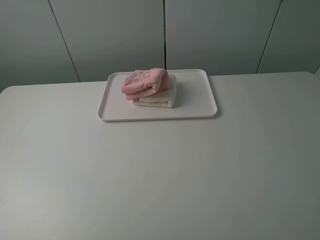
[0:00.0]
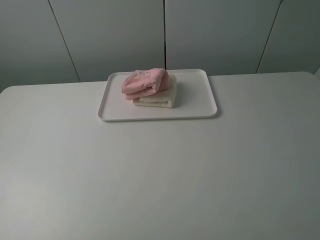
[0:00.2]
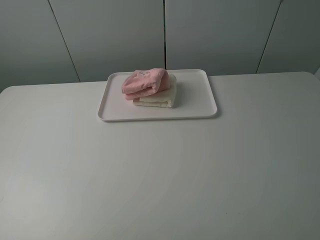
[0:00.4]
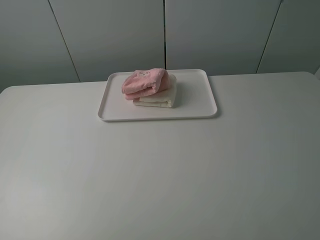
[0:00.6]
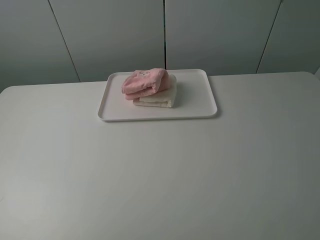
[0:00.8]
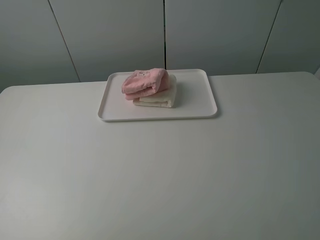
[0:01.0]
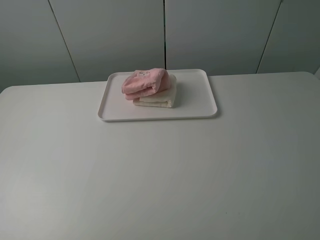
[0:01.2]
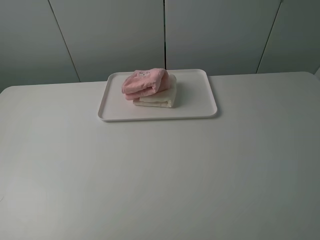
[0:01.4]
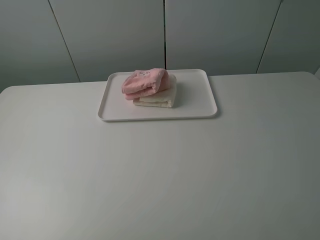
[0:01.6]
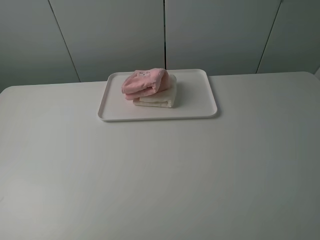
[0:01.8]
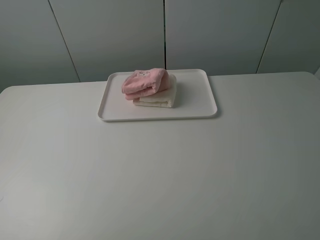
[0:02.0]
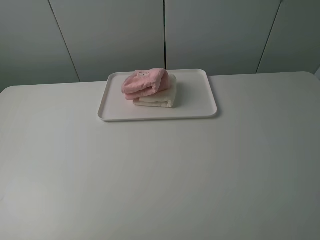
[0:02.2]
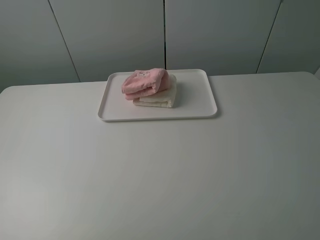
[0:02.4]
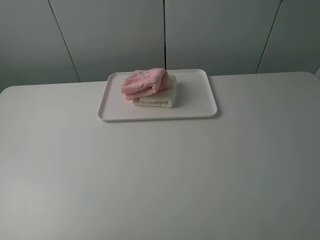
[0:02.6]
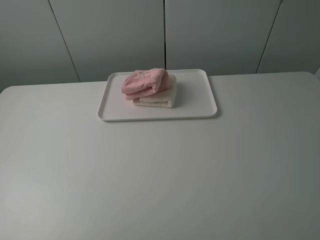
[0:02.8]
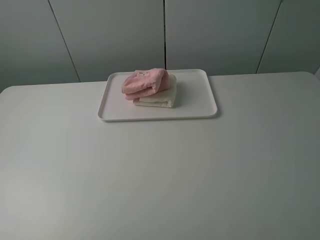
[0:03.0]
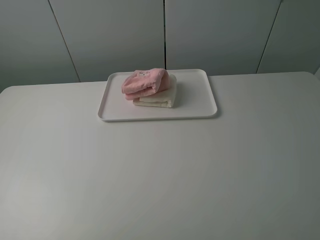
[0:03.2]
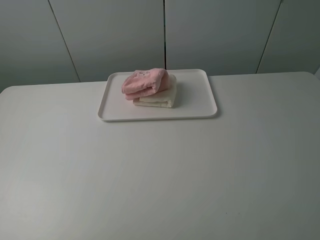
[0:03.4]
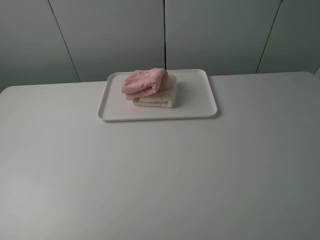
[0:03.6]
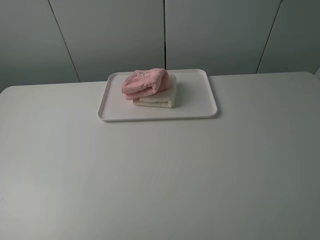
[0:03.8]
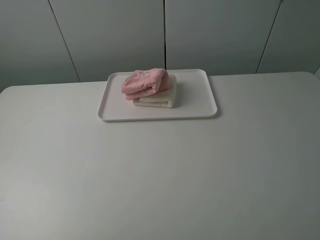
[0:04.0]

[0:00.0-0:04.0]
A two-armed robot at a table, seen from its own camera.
Task of the whole recording: fold one of the towels by two grippers and place it on the tray,then fold another towel by two grippers and place it on the folded towel.
0:02.6 to 0:04.0: Both grippers stay about where they are.

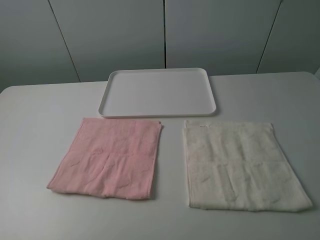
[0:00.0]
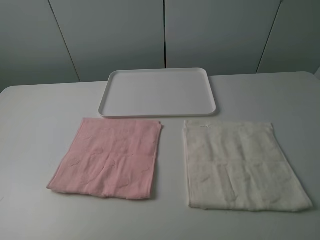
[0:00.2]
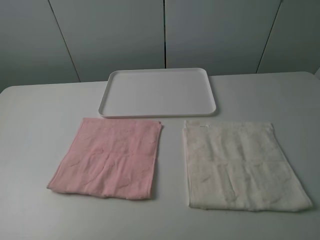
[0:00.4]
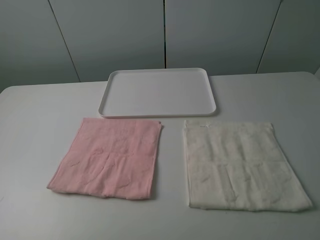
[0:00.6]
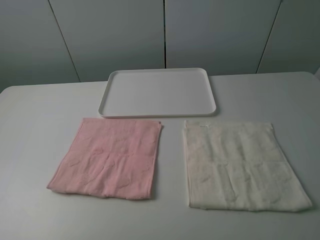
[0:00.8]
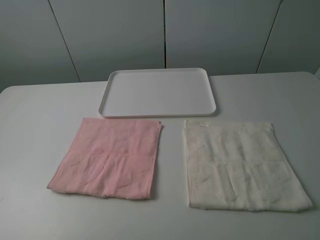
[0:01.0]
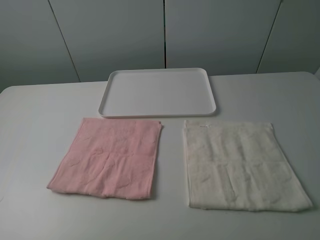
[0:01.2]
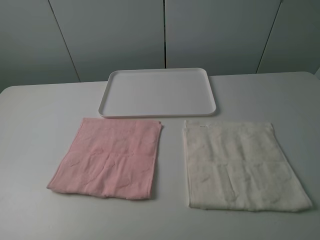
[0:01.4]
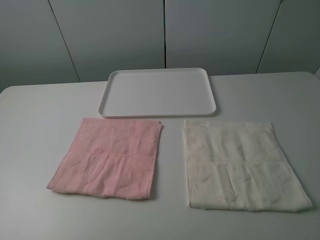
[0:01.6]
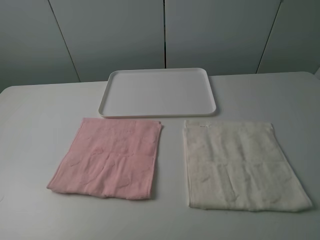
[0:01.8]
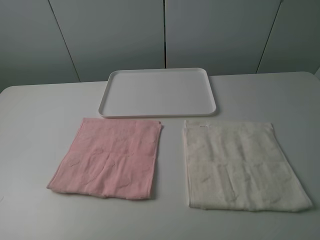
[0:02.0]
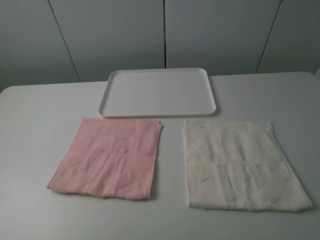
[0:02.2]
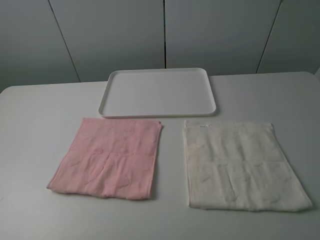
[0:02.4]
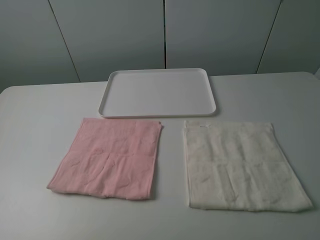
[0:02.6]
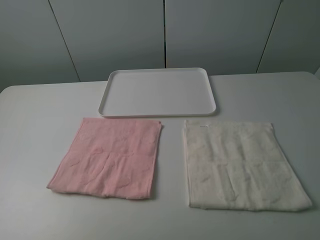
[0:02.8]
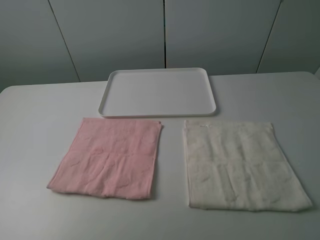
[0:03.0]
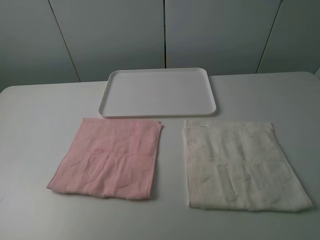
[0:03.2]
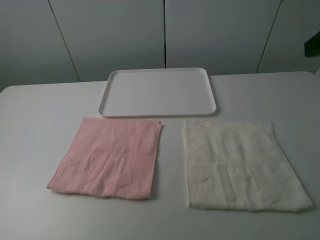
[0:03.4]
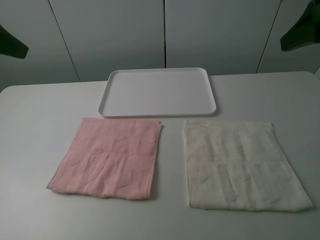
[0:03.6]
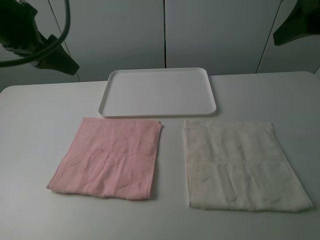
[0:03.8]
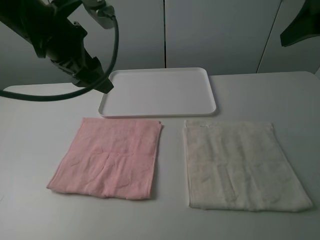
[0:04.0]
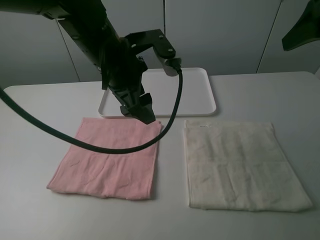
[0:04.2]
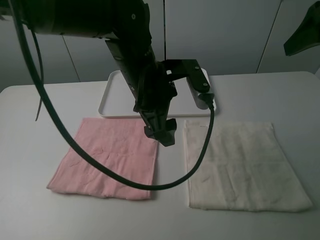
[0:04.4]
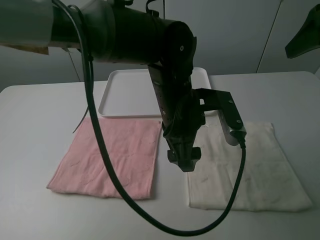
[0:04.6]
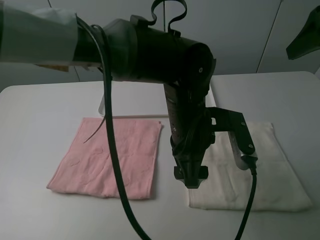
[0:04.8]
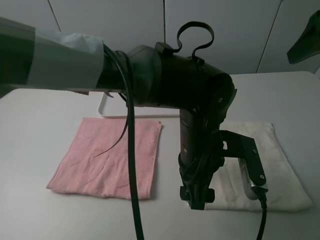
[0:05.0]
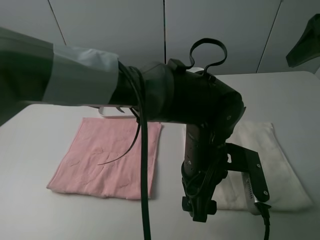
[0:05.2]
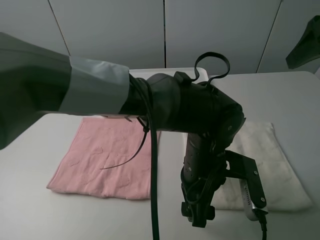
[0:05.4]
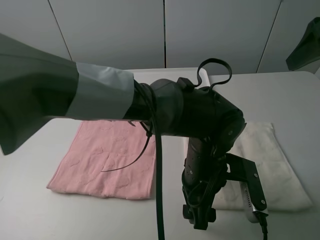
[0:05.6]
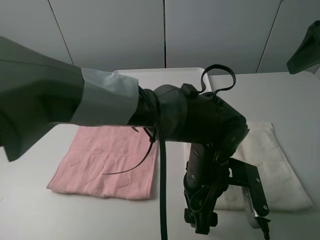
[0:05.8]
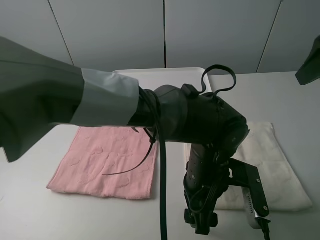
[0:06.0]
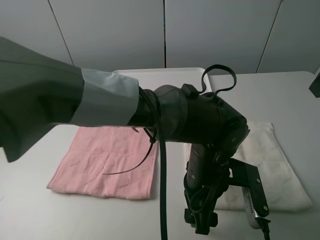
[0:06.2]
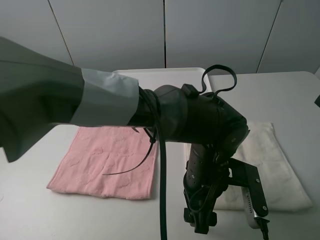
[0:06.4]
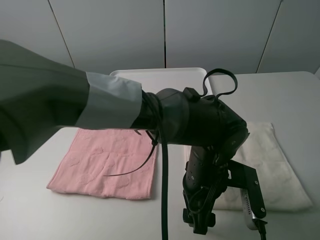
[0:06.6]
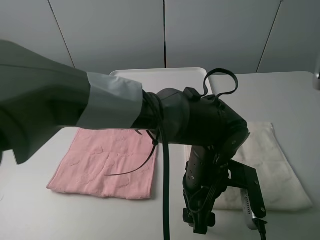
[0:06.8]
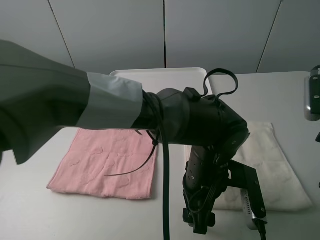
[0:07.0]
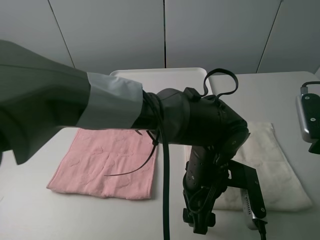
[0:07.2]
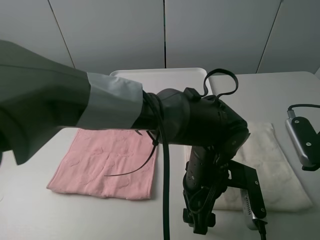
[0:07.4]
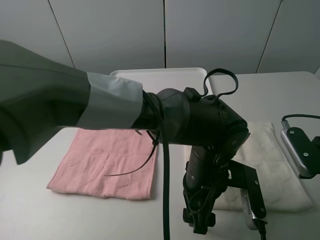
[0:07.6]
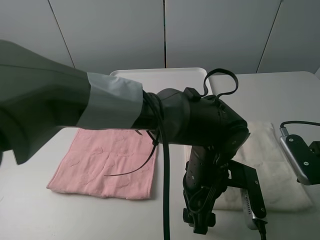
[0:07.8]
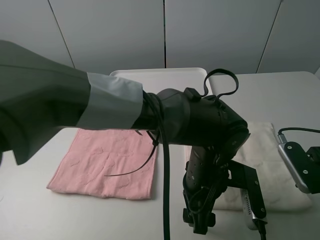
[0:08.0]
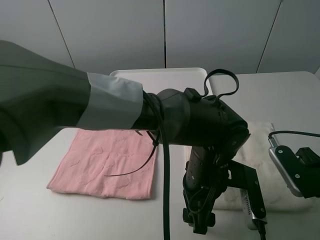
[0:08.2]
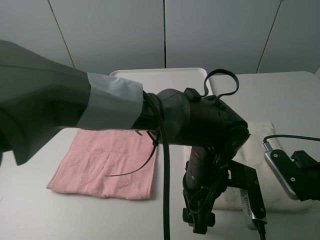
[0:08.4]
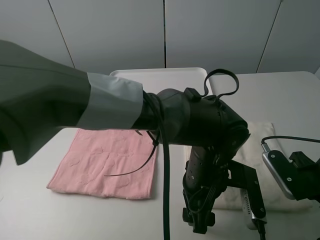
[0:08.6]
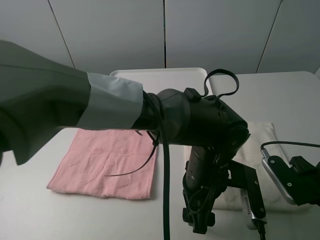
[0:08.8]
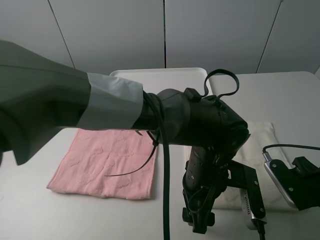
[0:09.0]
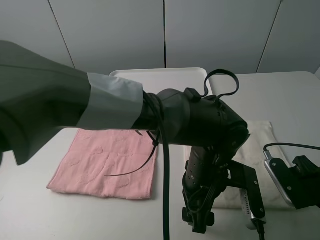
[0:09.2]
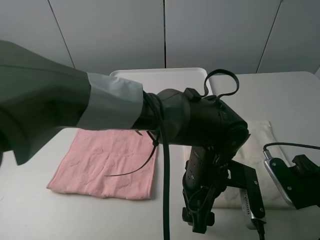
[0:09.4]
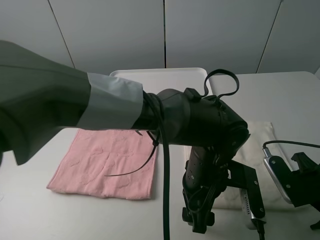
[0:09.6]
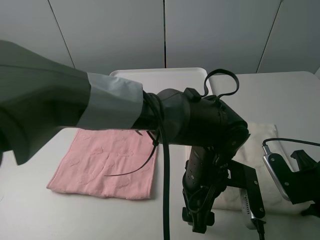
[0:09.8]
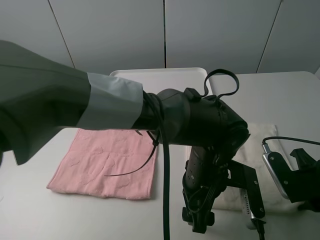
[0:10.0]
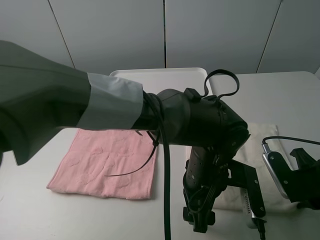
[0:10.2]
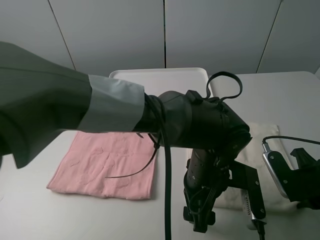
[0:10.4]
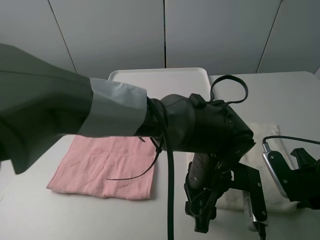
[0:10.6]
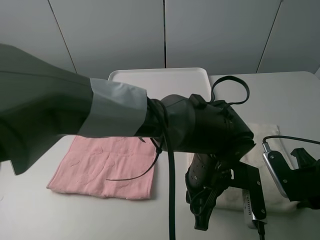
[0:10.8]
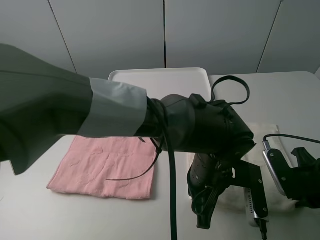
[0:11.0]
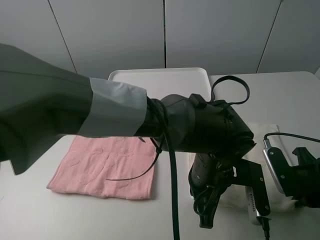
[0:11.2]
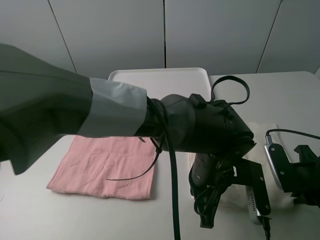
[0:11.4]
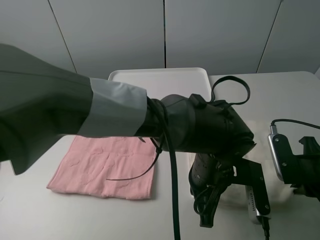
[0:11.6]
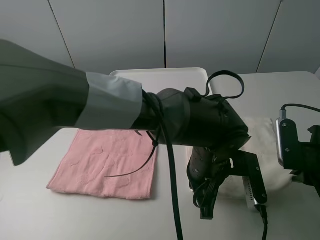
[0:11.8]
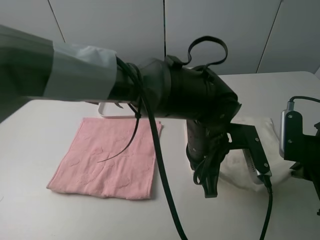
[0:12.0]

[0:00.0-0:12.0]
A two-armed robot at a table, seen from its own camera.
Task of the whole recording: fold one of the towels by two grippers and place it on the tray,then fold another towel by two grippers and place it on the folded towel.
Step, 0:00.0 to 0:11.2: Grasp the white towel with the left gripper.
0:00.0 to 0:01.6: The two grippers keep their place.
0:03.0 to 0:04.4: The right gripper heads forward, covering about 15 cm. Meanwhile the left gripper goes roughly 40 cm to the right, forward and downward.
0:04.4 to 0:06.0: The left gripper heads downward, backward and to the right, covering roughly 15 cm.
0:06.0 to 0:07.6: The right gripper is displaced downward by roughly 15 cm.
0:07.6 to 0:09.0: The right gripper changes place by some 5 cm.
0:09.0 to 0:10.4: The right gripper closes its fingers.
0:10.4 to 0:12.0: The left gripper shifts by roughly 5 cm, and closes its fingers.

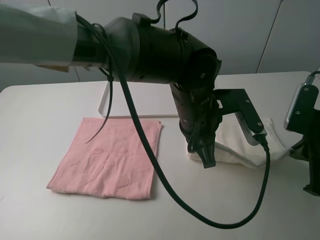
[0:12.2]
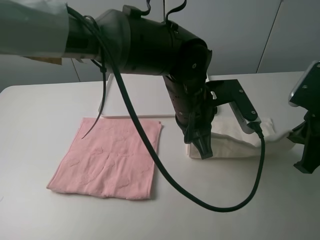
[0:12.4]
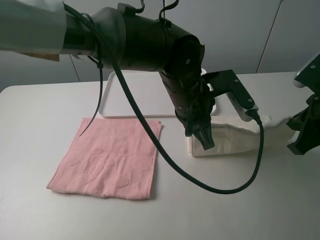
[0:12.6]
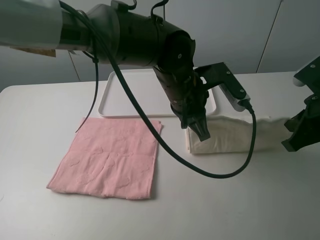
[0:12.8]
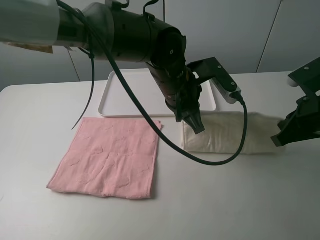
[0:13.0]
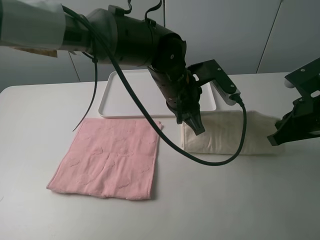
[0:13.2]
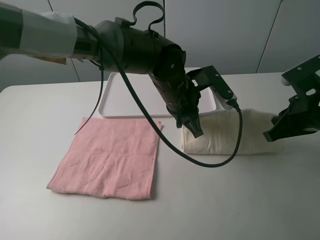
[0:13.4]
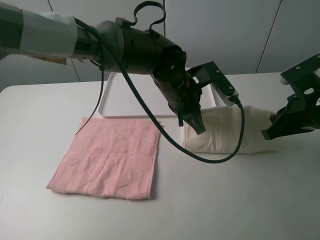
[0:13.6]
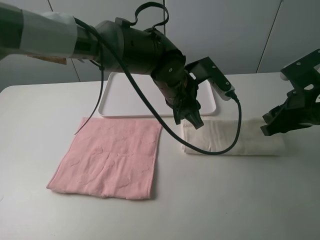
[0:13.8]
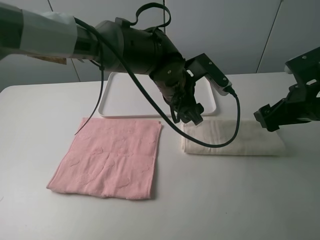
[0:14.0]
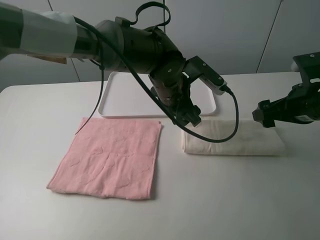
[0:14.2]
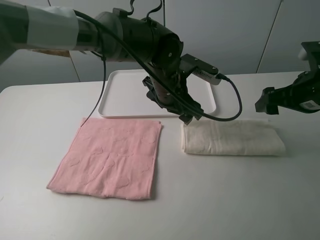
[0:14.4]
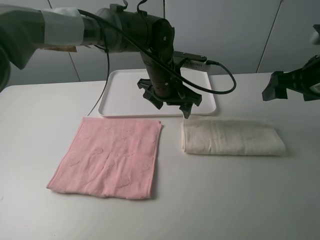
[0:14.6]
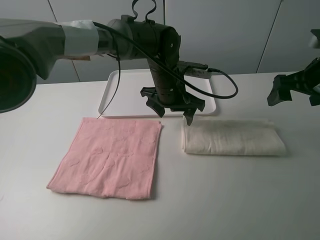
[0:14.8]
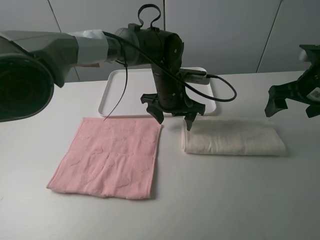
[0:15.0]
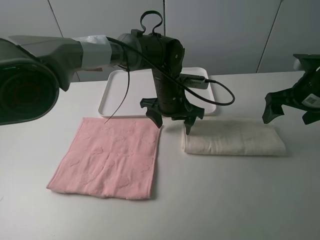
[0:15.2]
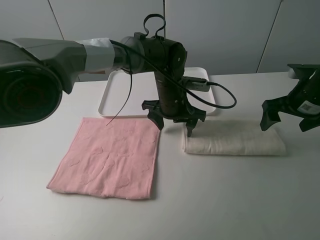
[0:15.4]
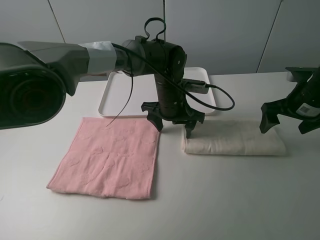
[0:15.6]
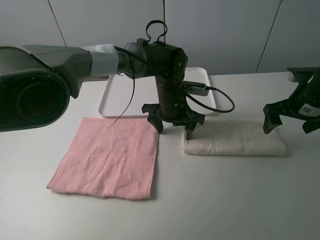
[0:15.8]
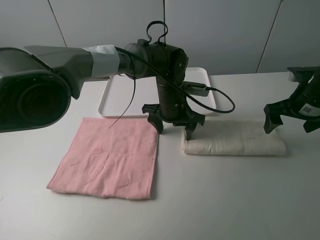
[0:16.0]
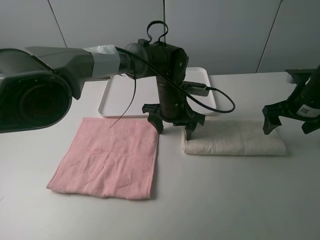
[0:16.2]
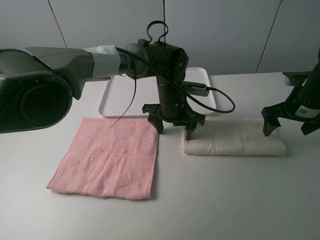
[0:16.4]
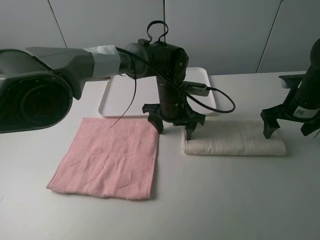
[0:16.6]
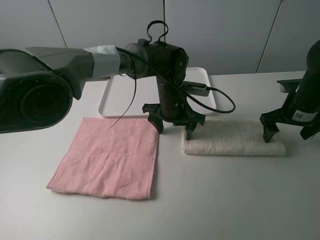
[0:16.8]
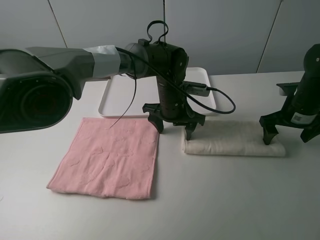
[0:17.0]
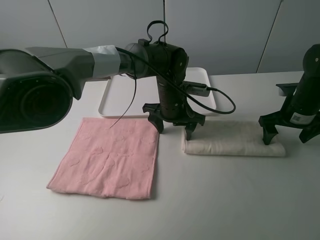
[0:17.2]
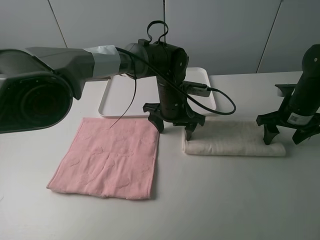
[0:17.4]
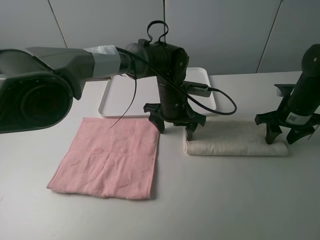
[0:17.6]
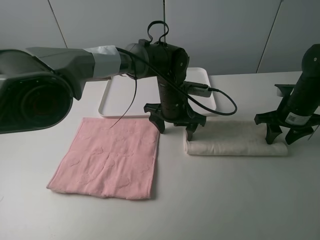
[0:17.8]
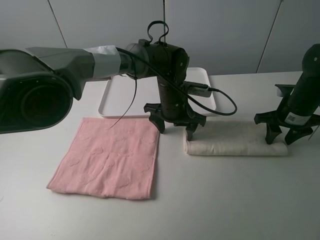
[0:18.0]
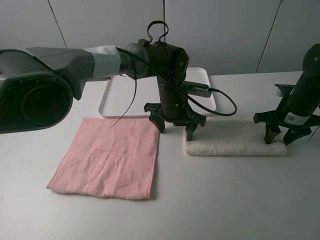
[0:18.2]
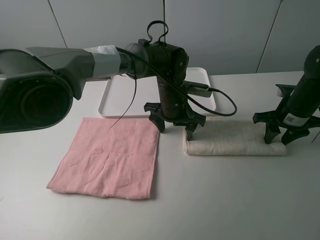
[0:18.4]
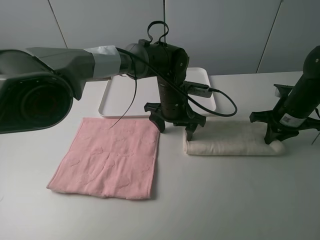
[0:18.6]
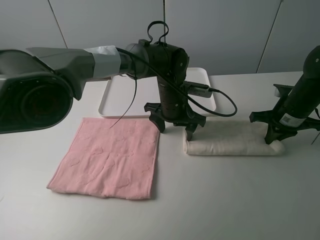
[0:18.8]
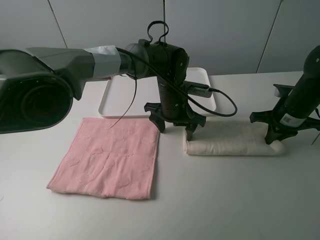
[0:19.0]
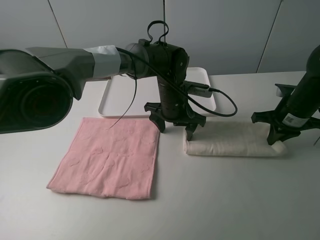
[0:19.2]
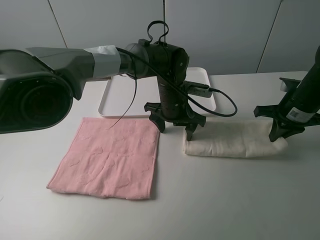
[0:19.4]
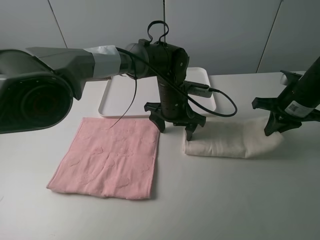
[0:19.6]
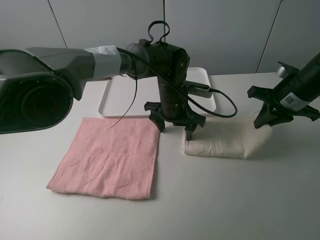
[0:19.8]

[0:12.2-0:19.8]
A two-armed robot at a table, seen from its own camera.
Task of the whole recording: fold one of the towels by two grippers and place it on the tray,then fold another towel by two grippers and place it on the folded towel.
Step, 0:12.2 to 0:14.0: Fold the white towel upwards with the left gripper.
Step, 0:14.2 to 0:16.0: Press the white towel with the left gripper.
Step, 0:16.2 to 0:18.8: Grasp the white towel with the right gripper.
0:12.2 to 0:13.8: Both grippers move forward, approximately 5 cm. The right gripper opens its fingers. The left gripper opens.
0:13.8 to 0:15.2: The left gripper moves approximately 5 cm. Meanwhile the right gripper moves forward, approximately 5 cm, and opens.
0:15.2 to 0:16.8: The right gripper travels downward by roughly 5 cm.
0:16.8 to 0:18.2: The right gripper closes.
0:18.2 to 0:19.8: The right gripper shifts about 5 cm upward, and closes its fingers.
